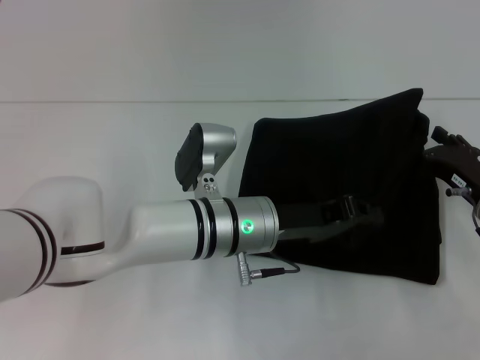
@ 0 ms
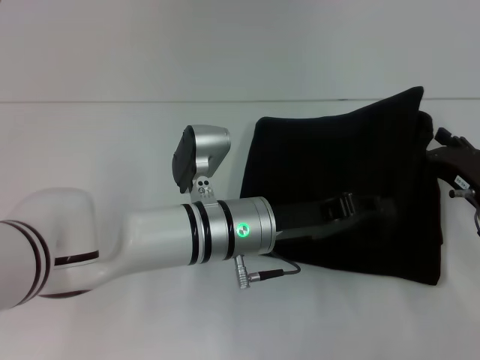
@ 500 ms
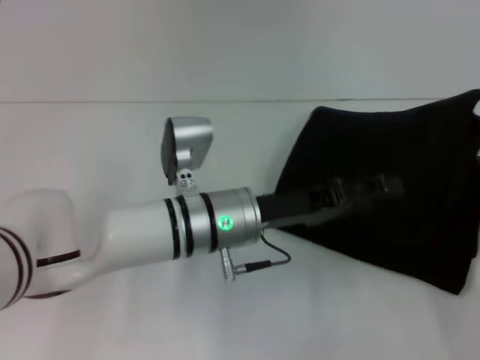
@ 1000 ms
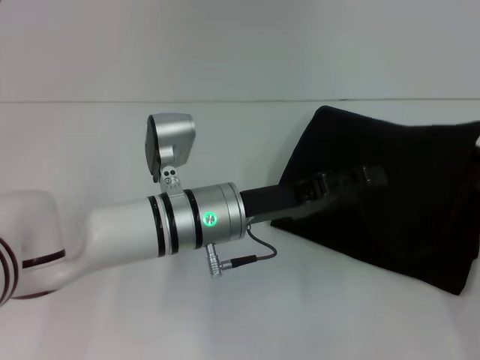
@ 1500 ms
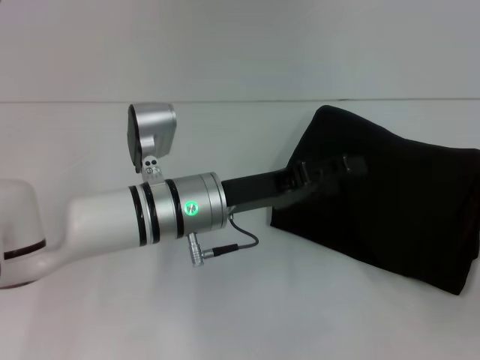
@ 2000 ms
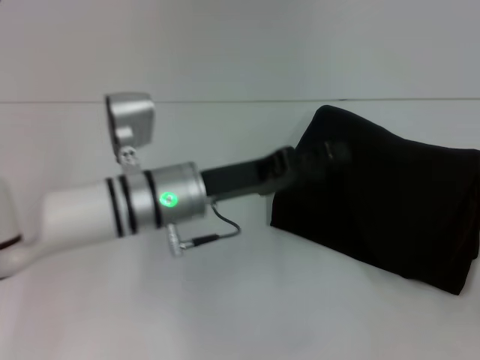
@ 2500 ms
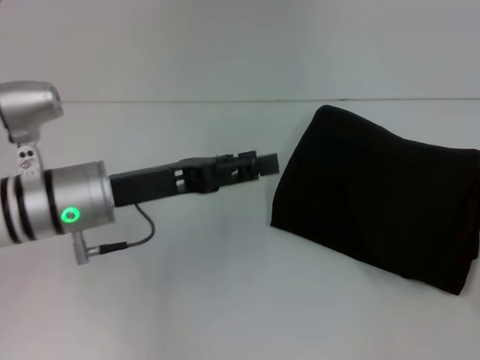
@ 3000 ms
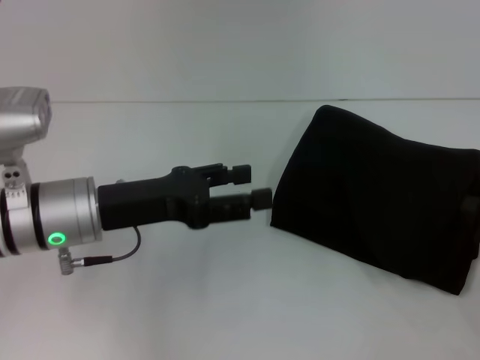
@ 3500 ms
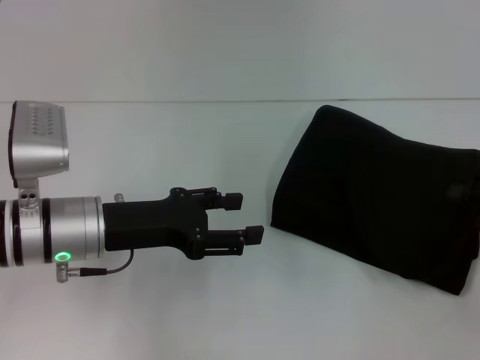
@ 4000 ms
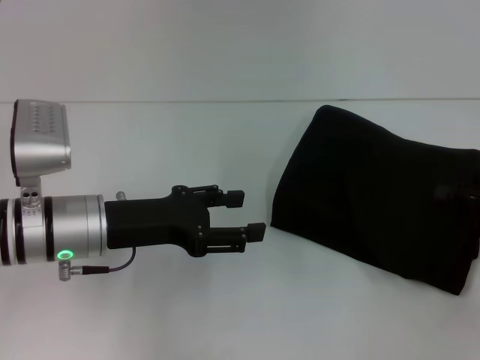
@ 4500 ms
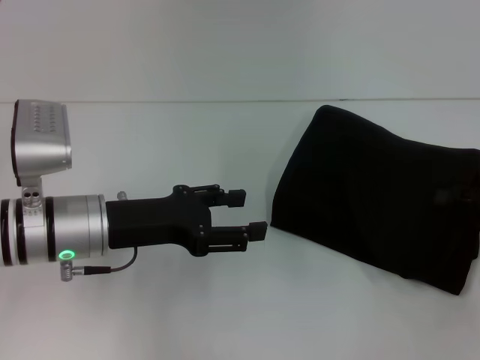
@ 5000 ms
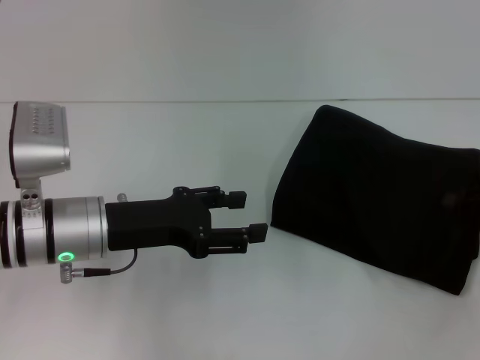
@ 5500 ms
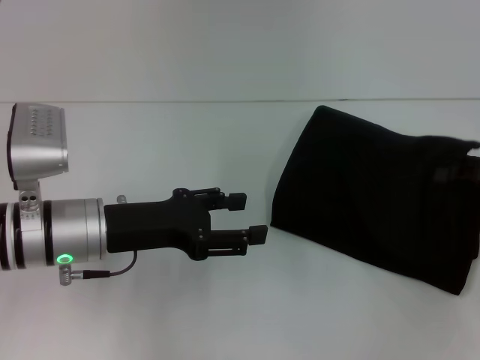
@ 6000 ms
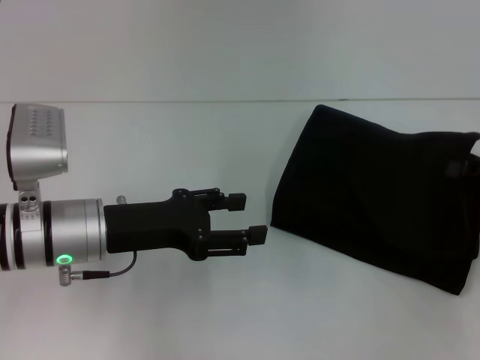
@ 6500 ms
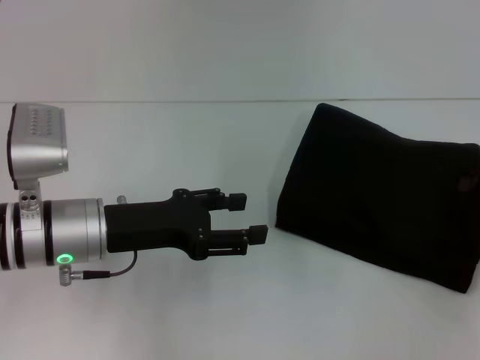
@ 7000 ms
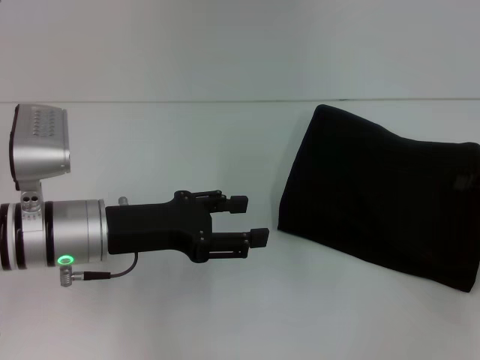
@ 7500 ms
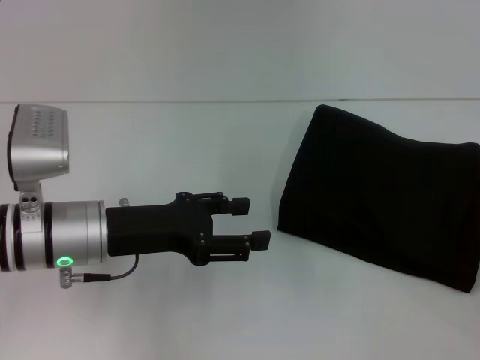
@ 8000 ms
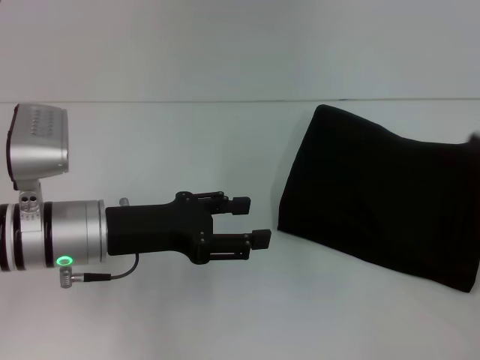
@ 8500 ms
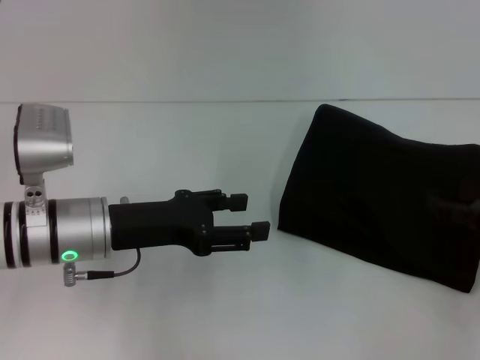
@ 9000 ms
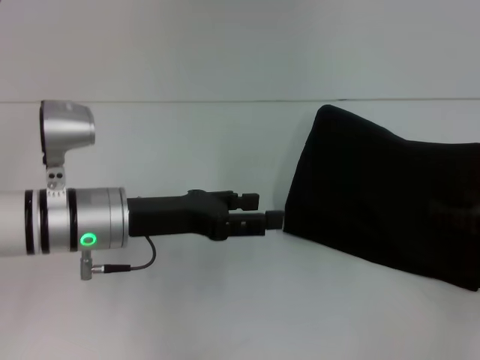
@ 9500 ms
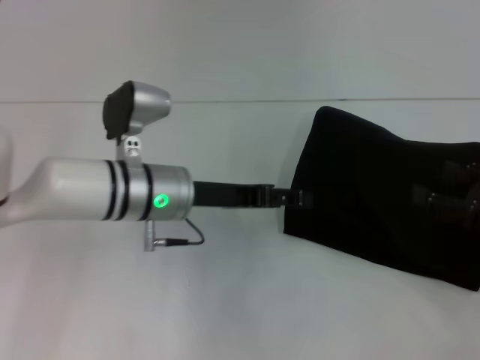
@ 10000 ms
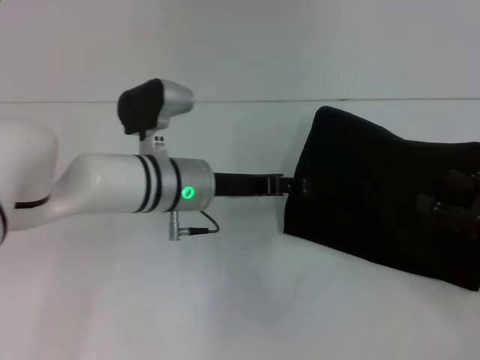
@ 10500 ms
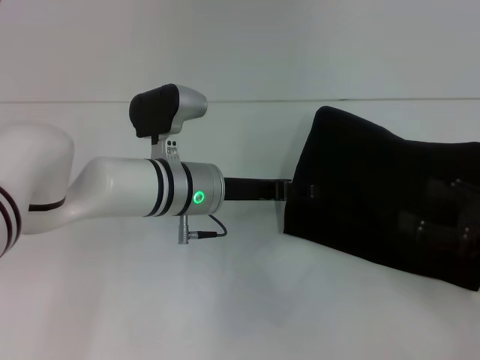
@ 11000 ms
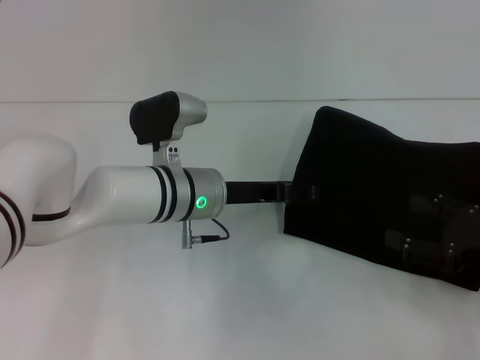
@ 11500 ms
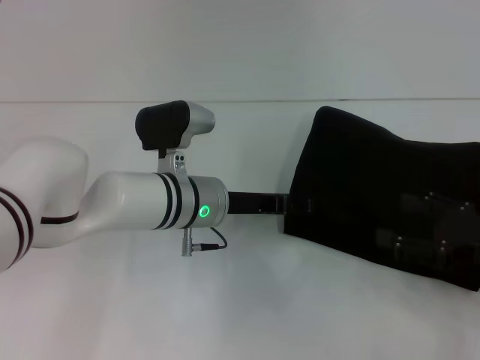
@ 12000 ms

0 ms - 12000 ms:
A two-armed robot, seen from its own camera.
0 ms - 2000 ms: The left gripper changes place by some 5 cm, and opens; the right gripper moves backward and to the right, about 15 cm.
2000 ms - 4000 ms: The right gripper shifts some 10 cm forward and upward. The left gripper heads to the left, covering approximately 10 cm.
4000 ms - 6000 ms: The right gripper closes up.
6000 ms - 8000 ms: The right gripper is displaced to the right by some 5 cm, and opens up.
8000 ms - 10000 ms: The left gripper is displaced to the right and forward by approximately 10 cm; the right gripper goes about 5 cm to the left, and opens up.
10000 ms - 12000 ms: The left gripper ends up roughly 5 cm from where it was.

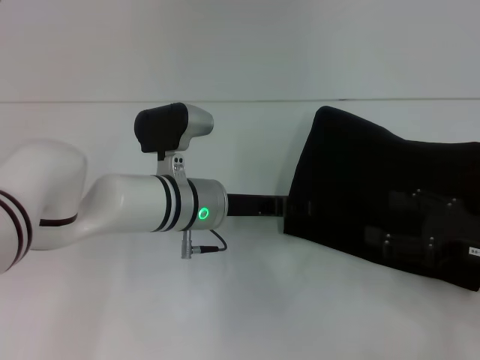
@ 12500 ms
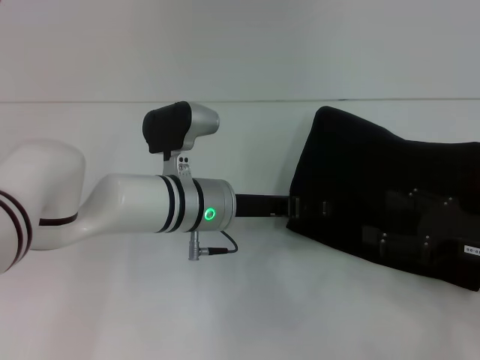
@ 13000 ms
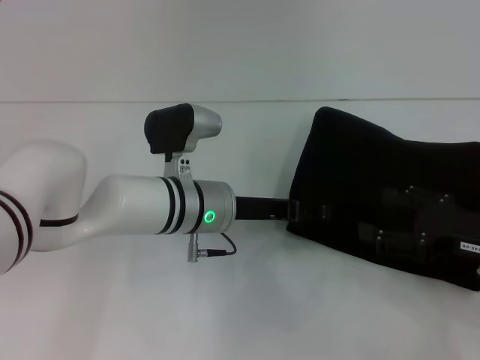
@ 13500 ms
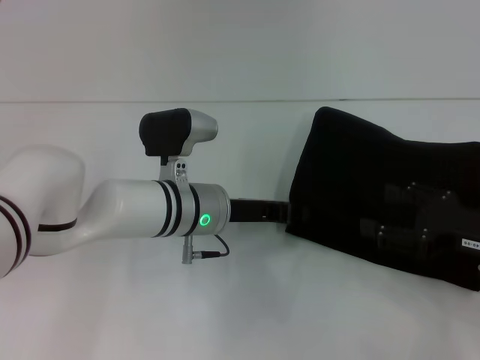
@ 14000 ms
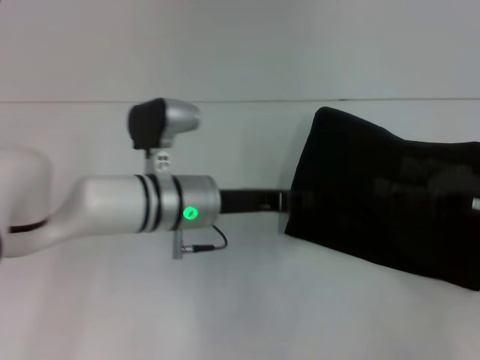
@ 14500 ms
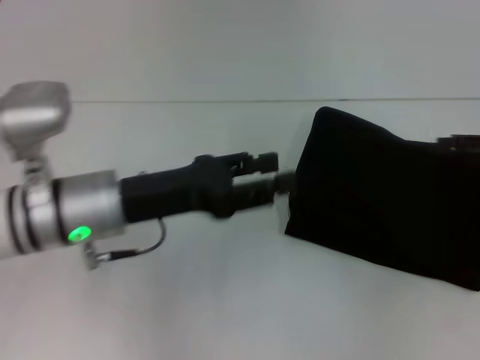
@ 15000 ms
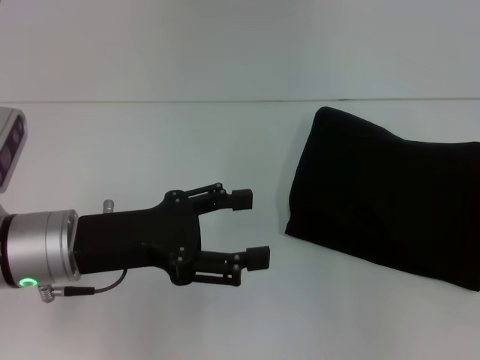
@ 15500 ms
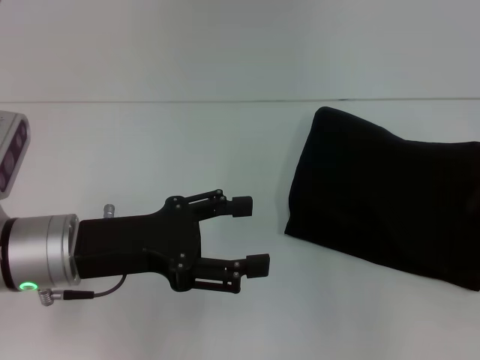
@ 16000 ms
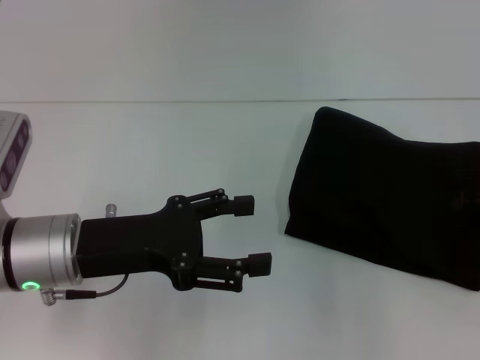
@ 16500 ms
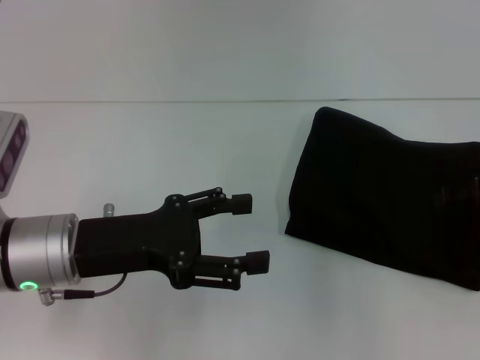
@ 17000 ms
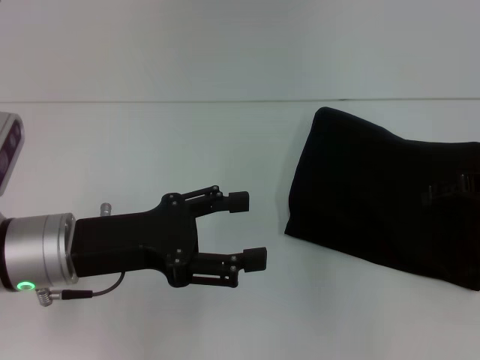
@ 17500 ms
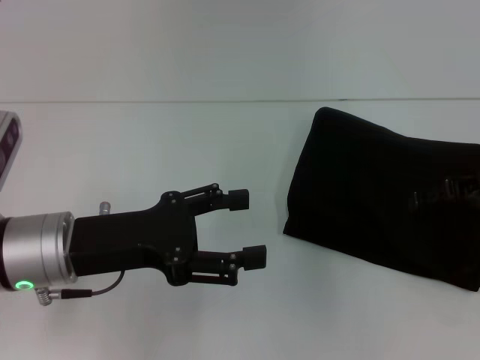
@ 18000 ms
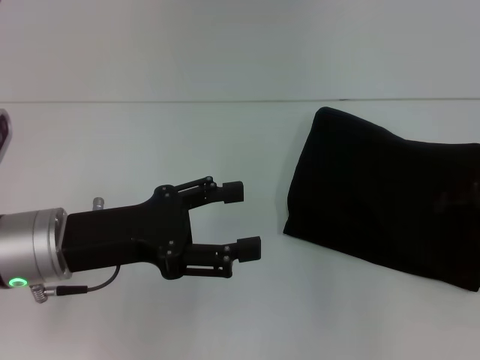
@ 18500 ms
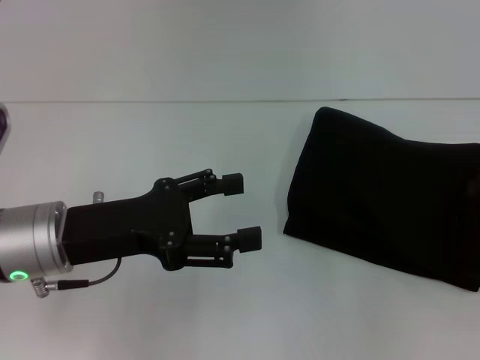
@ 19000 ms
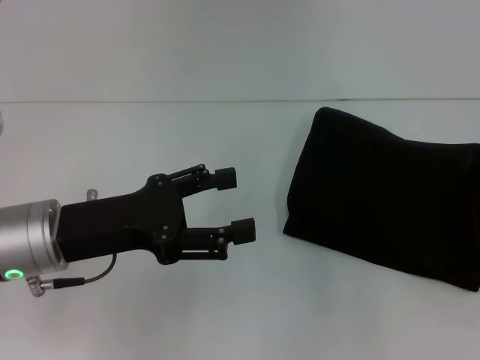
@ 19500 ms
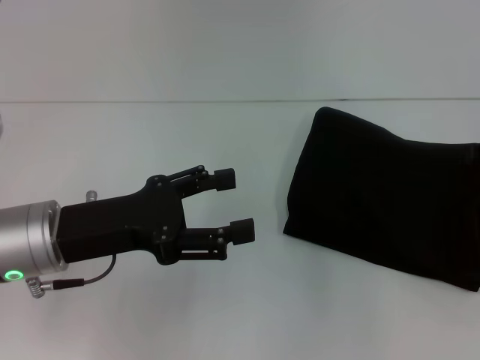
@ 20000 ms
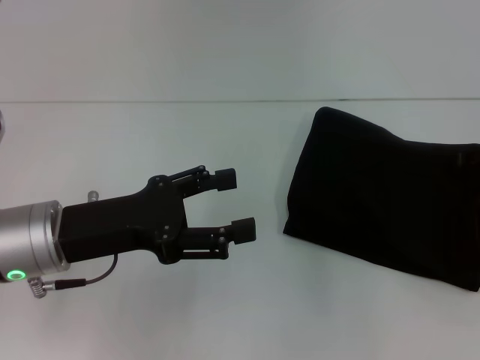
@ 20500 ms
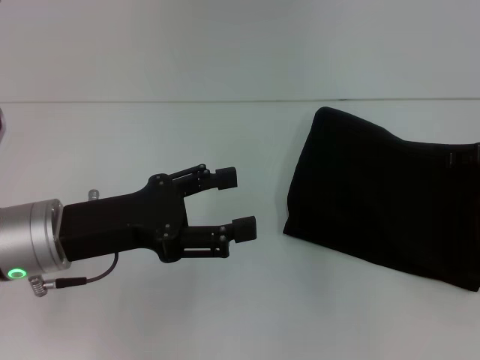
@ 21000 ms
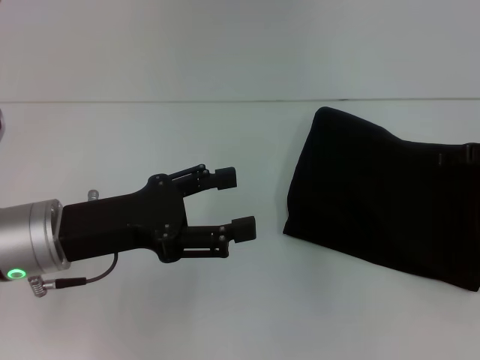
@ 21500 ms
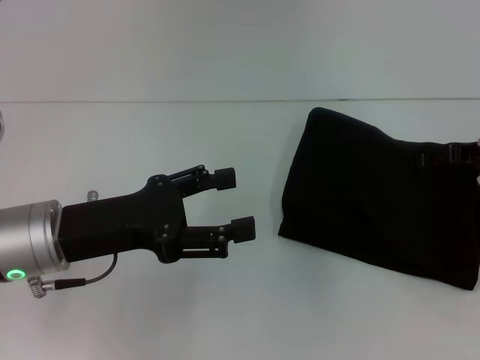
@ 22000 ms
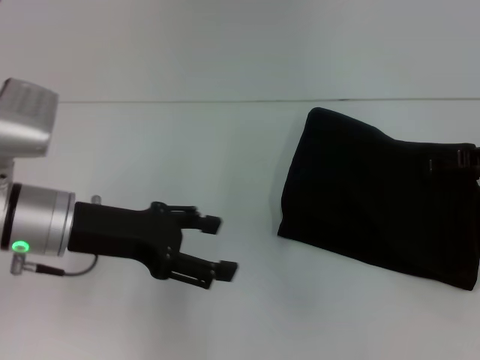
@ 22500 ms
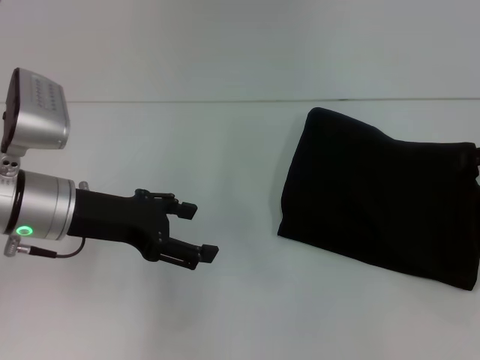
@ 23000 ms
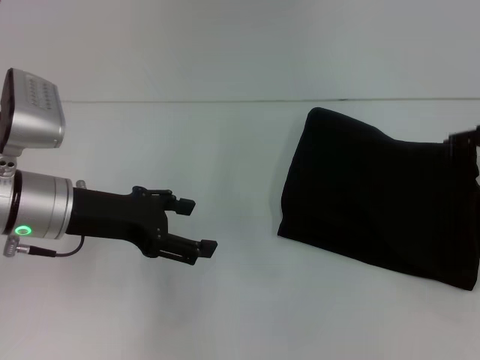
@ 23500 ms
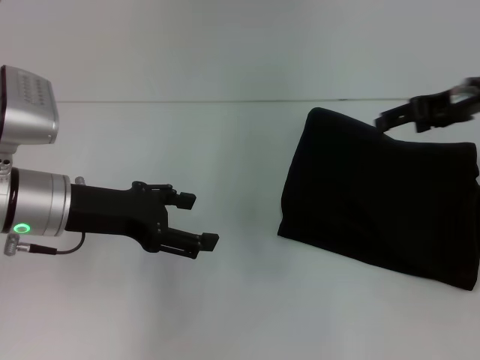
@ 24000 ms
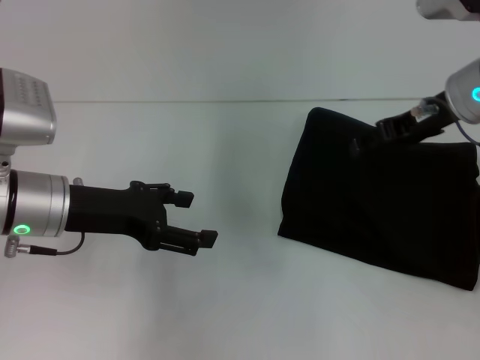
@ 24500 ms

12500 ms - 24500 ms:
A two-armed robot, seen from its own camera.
12500 ms - 14500 ms: The left gripper closes its fingers.
14500 ms - 16500 ms: The right gripper changes place by approximately 10 cm, while the left gripper is displaced to the left and backward by roughly 15 cm, and opens its fingers.
16500 ms - 20500 ms: The grippers make only small movements.
22500 ms - 24500 ms: The right gripper moves to the left and upward, about 10 cm.

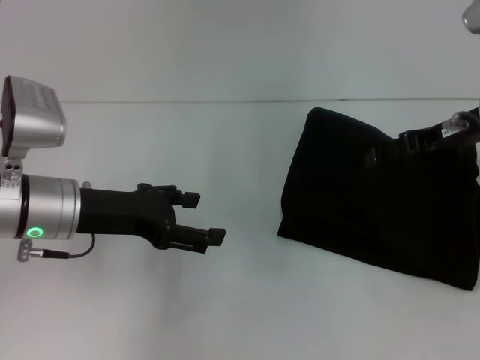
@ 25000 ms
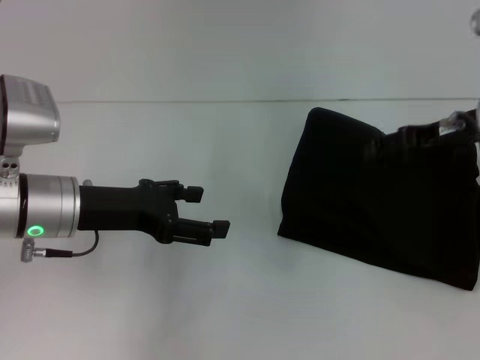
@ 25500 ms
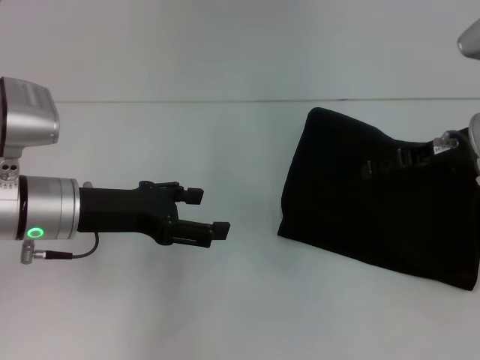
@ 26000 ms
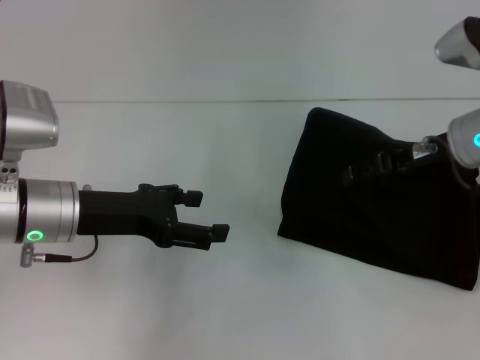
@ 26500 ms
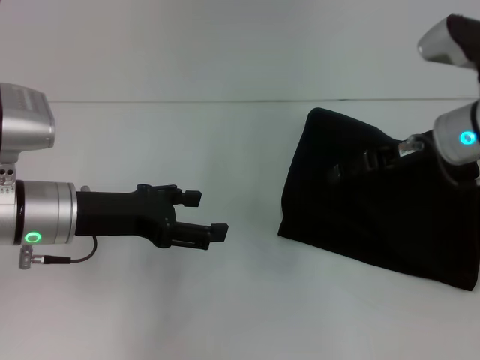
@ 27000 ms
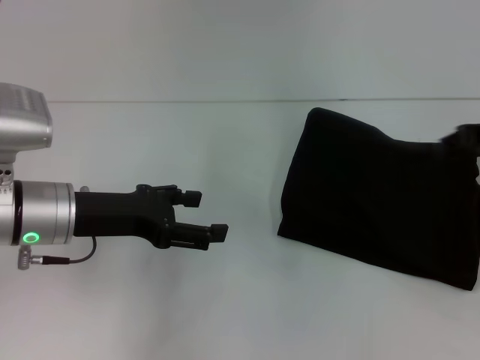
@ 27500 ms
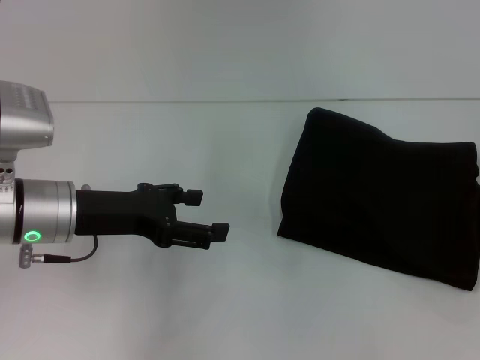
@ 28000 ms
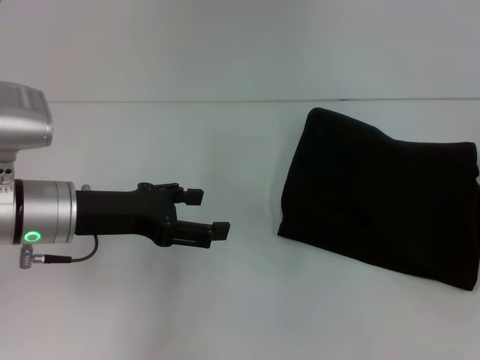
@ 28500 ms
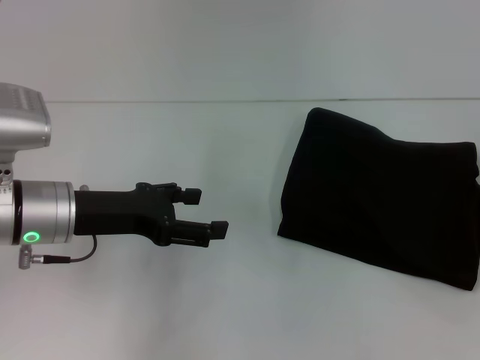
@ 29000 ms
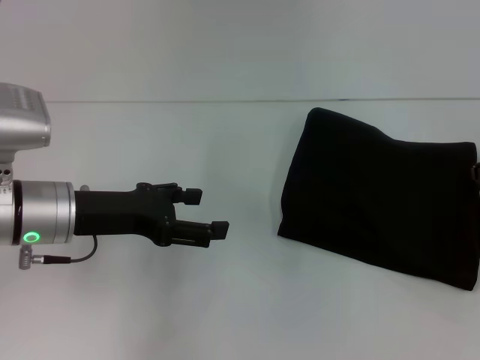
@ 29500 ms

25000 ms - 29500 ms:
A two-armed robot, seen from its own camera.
25000 ms - 27000 ms: The grippers stay close to where they were, moving slightly.
27000 ms - 29500 ms: The right gripper is displaced to the right by approximately 10 cm, and closes up.
